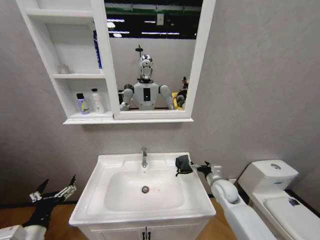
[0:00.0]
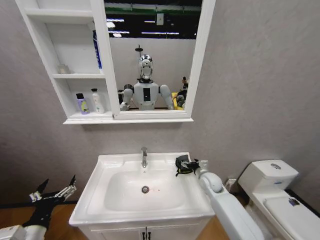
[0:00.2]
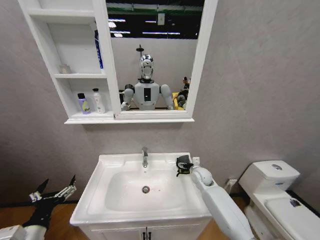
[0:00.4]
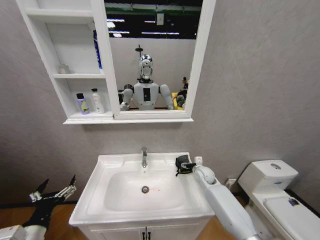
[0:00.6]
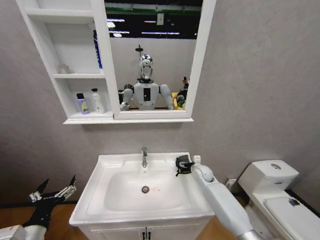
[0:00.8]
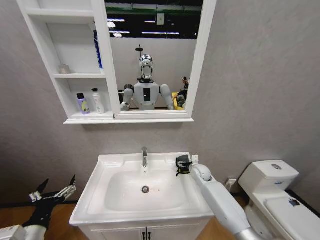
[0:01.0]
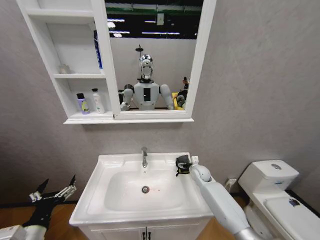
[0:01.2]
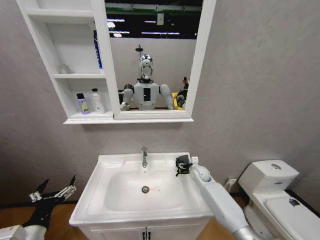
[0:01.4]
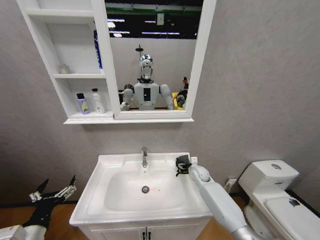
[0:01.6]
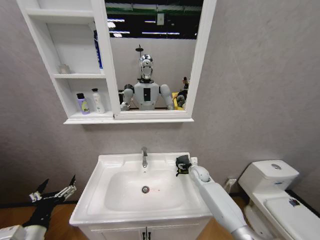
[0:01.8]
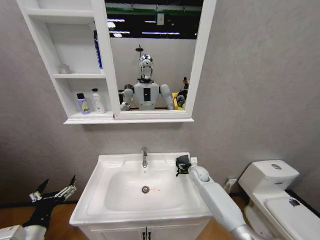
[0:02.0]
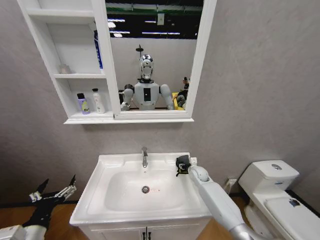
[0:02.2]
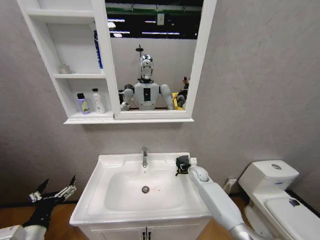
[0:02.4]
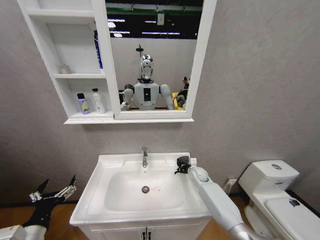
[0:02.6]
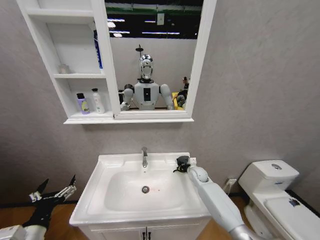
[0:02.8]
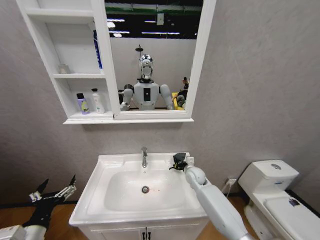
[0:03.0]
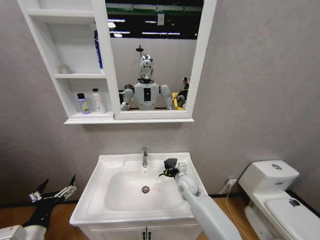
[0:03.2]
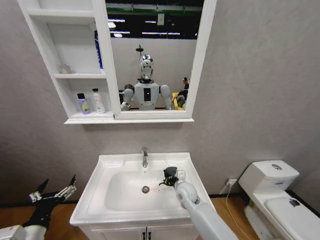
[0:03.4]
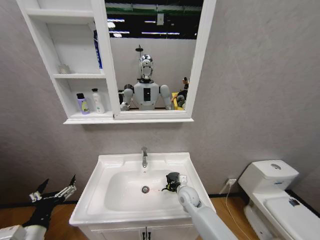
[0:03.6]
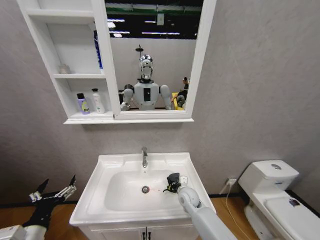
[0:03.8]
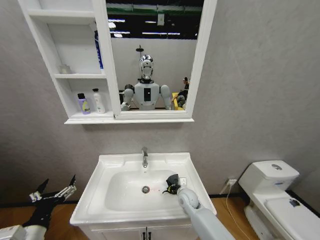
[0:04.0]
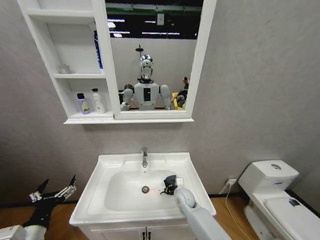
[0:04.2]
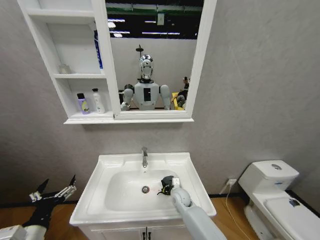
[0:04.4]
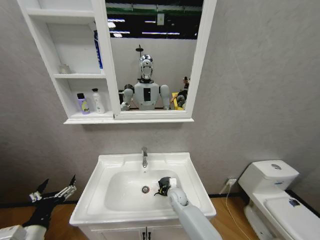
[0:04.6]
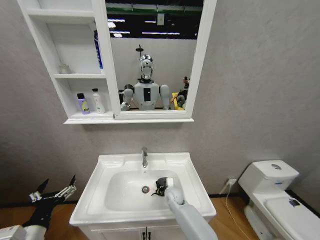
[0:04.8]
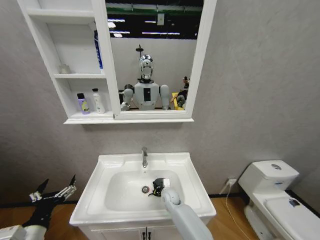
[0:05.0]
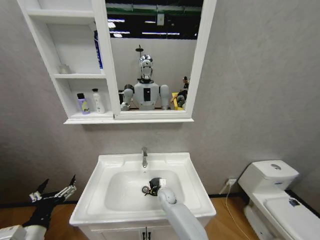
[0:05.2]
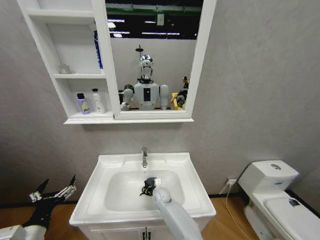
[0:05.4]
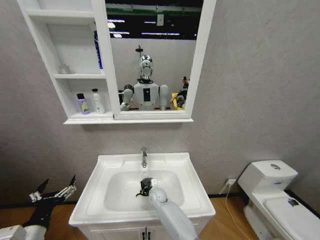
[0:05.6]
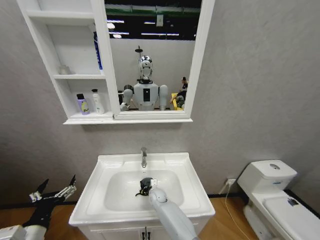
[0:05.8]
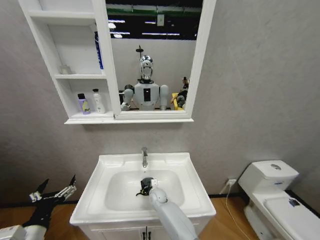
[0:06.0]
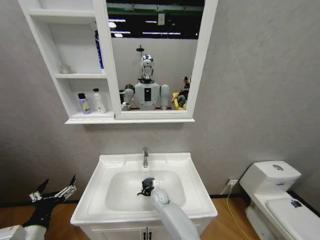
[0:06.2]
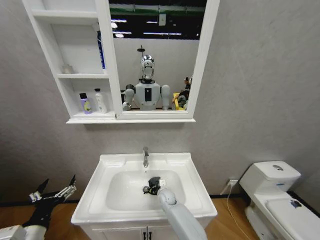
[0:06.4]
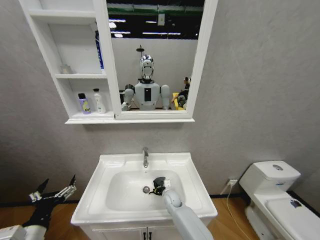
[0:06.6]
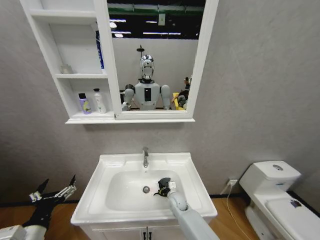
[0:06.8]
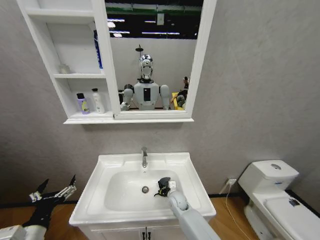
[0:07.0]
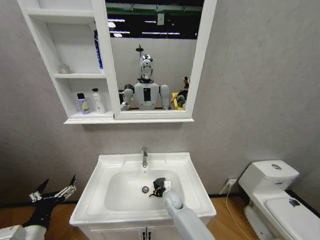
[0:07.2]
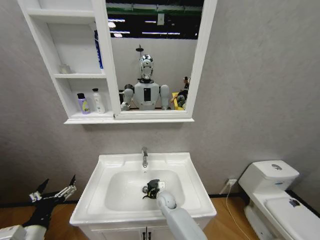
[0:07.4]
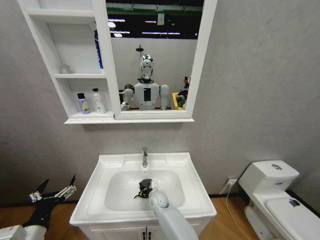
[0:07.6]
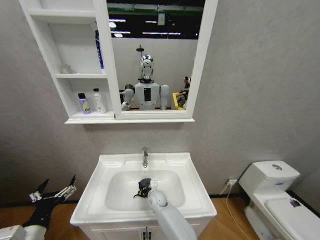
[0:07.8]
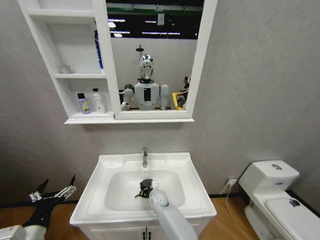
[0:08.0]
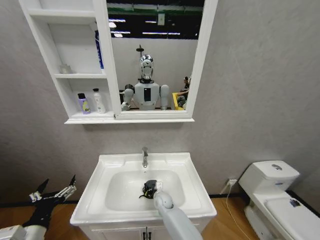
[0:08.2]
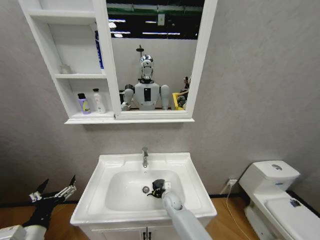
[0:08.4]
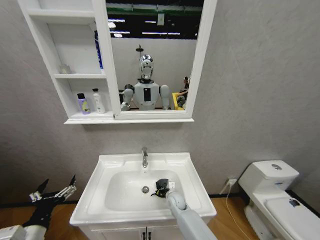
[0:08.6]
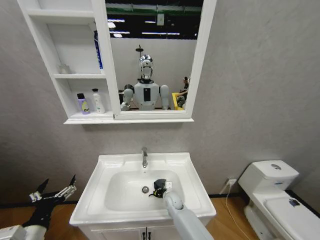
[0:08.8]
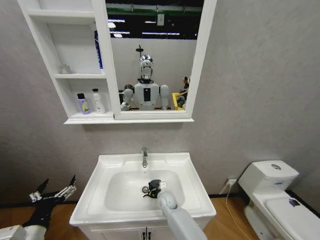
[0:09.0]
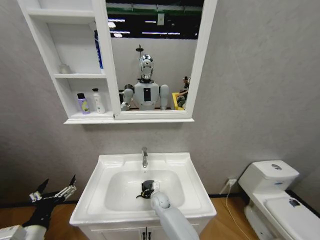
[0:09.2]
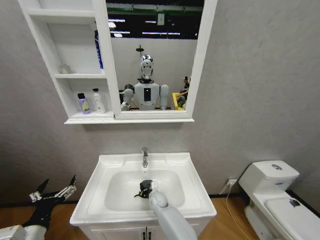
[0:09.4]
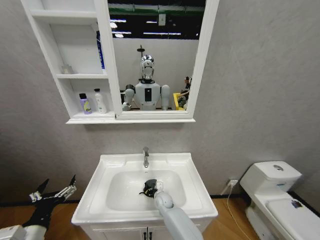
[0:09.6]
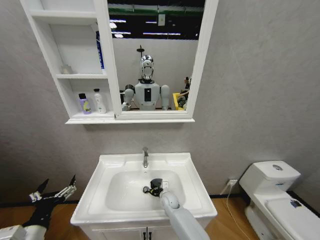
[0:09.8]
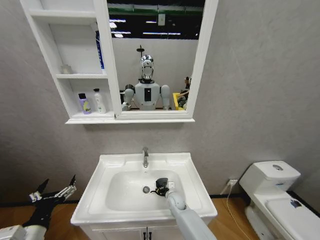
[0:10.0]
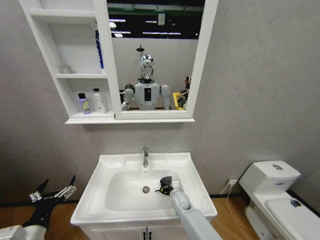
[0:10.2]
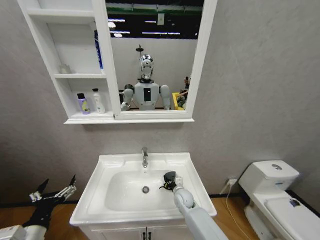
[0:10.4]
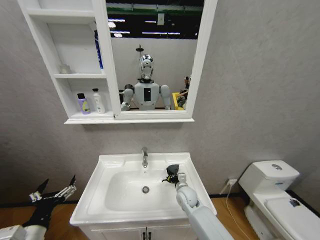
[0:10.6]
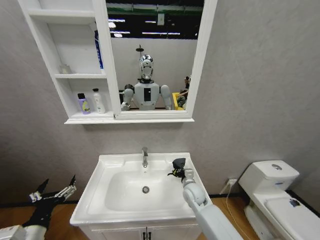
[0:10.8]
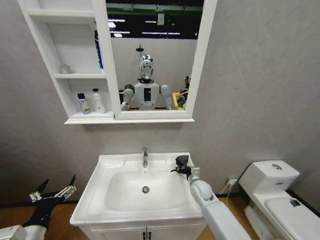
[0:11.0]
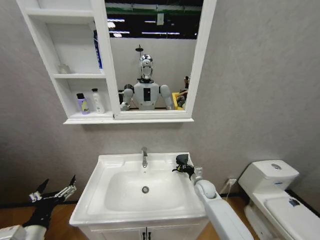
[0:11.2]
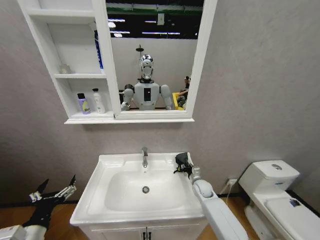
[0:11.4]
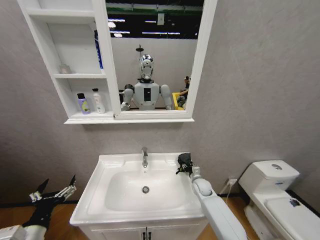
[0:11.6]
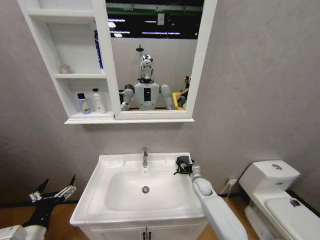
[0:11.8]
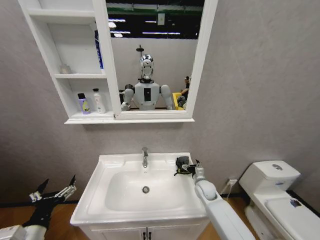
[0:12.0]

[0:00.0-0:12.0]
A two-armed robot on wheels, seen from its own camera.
Task of the whole recording: Move facial cleanser and shampoo from washbasin to cabinet, then wipe washbasin with towel.
0:00.0 to 0:01.6: The right gripper moves forward and to the left, roughly 10 cm.
0:01.6 to 0:03.0: The right gripper moves about 5 cm, and closes.
0:03.0 to 0:04.4: The right gripper goes roughly 15 cm downward, to the left and backward.
0:04.4 to 0:06.0: The right gripper shifts approximately 10 cm to the left and downward.
0:06.0 to 0:07.6: The right gripper goes to the right and returns, some 10 cm each way.
0:09.0 to 0:10.4: The right gripper travels to the right by about 5 cm.
0:10.4 to 0:12.0: The right gripper goes about 10 cm to the right, and opens.

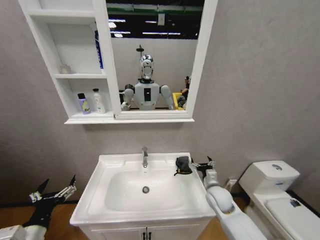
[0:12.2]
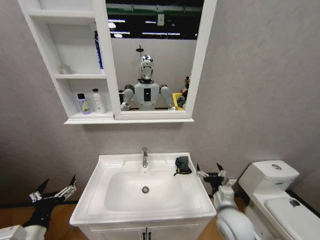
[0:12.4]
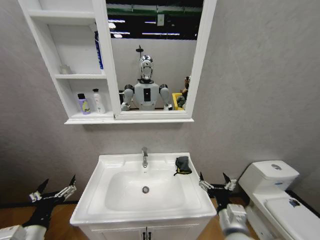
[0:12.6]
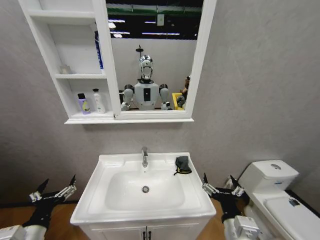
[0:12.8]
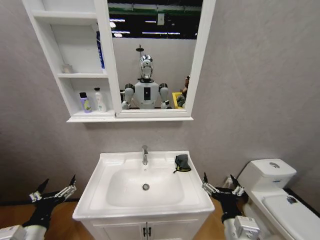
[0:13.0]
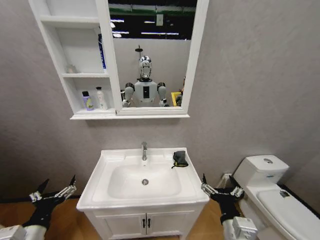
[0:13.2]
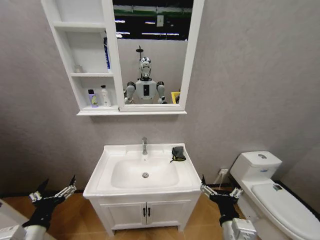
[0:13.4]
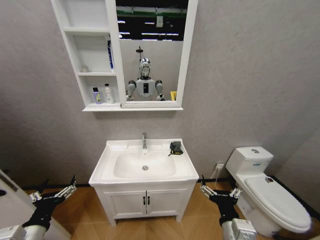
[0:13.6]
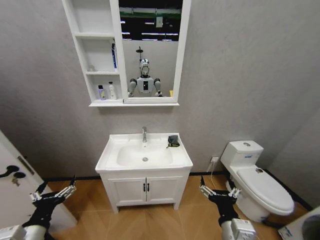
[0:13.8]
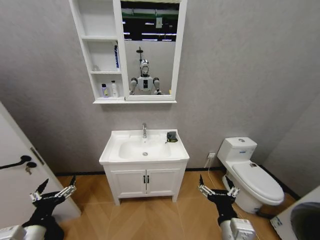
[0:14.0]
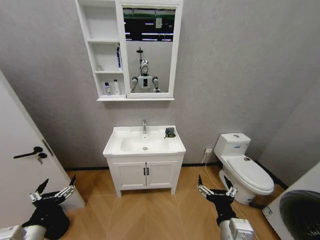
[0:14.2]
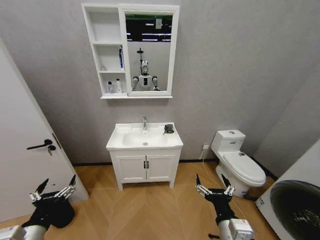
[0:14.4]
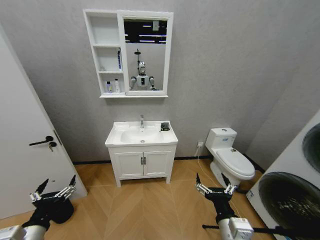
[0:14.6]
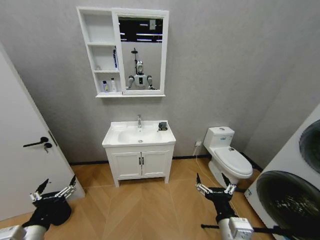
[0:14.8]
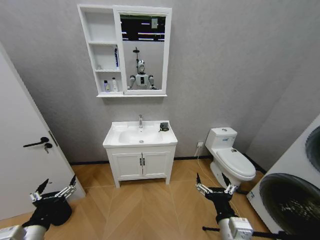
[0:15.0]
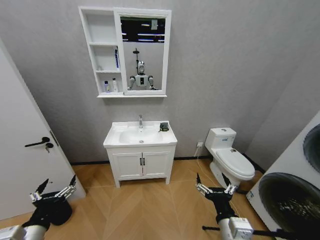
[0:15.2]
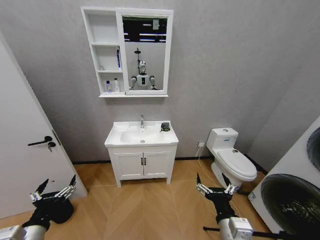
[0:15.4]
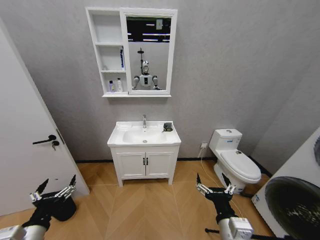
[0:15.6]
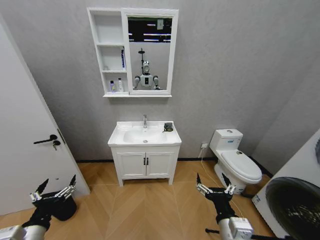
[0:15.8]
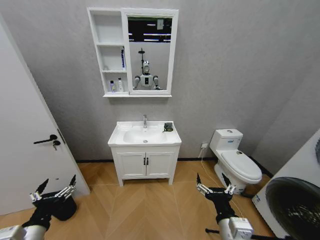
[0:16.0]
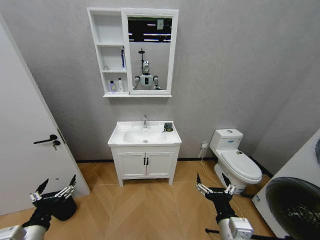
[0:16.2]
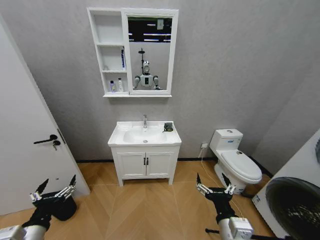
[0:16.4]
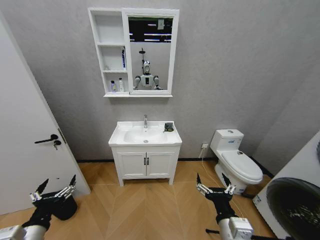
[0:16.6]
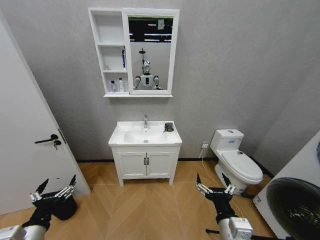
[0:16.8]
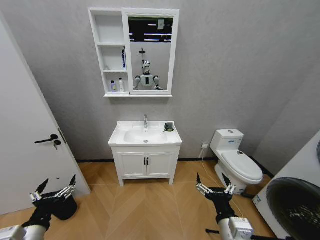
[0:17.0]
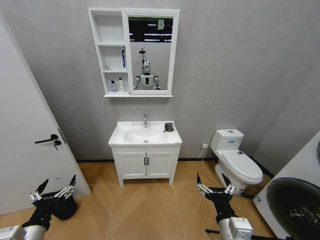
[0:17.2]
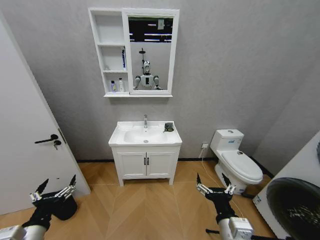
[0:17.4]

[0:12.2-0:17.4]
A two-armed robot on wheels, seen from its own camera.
Task of the whole recording: Move facial cleanser and shampoo from washbasin to cabinet, then wipe washbasin with towel.
0:12.2 to 0:14.0: The right gripper heads backward, covering approximately 25 cm.
0:15.6 to 0:17.4: Both grippers stay about where they are.

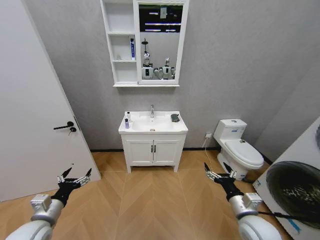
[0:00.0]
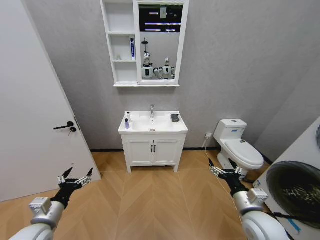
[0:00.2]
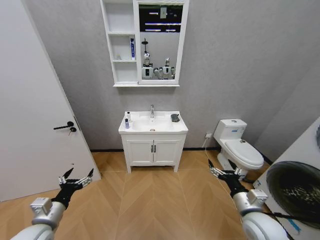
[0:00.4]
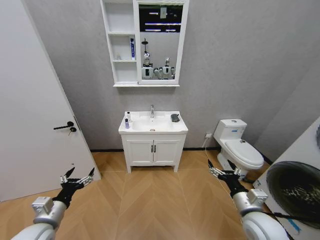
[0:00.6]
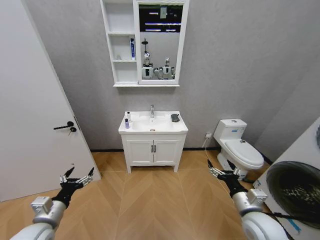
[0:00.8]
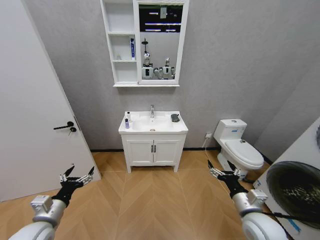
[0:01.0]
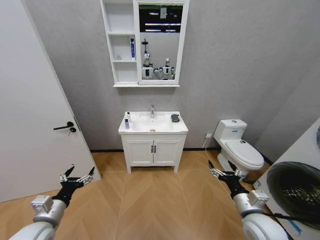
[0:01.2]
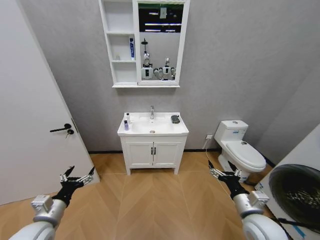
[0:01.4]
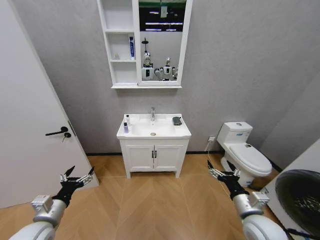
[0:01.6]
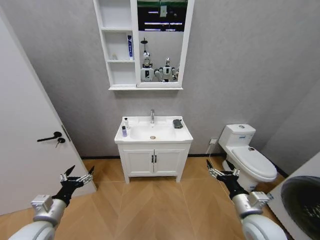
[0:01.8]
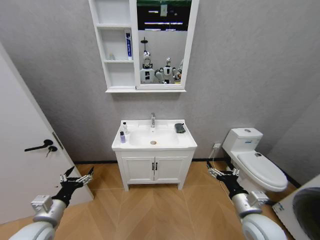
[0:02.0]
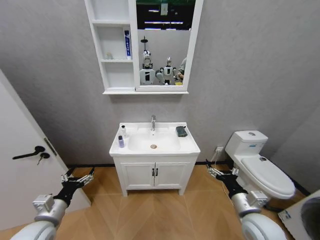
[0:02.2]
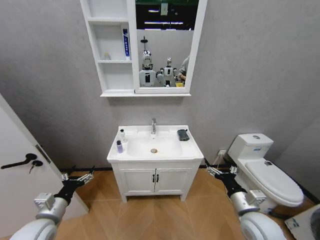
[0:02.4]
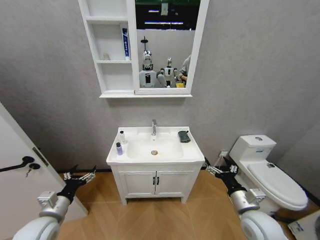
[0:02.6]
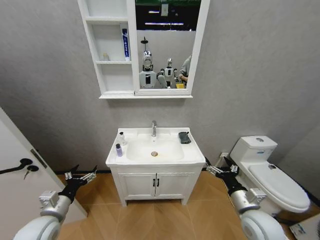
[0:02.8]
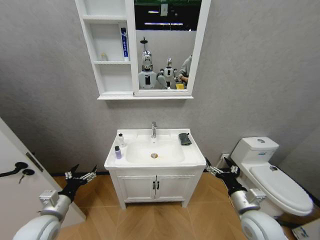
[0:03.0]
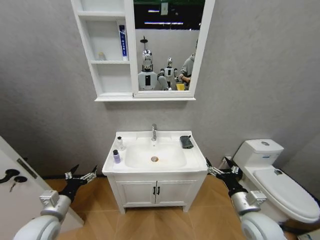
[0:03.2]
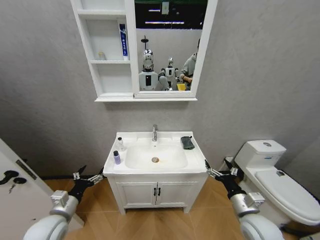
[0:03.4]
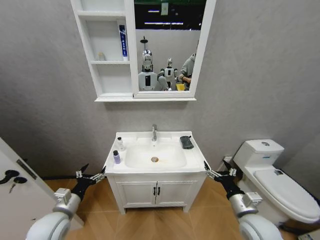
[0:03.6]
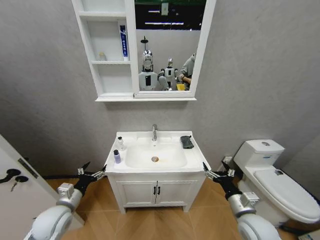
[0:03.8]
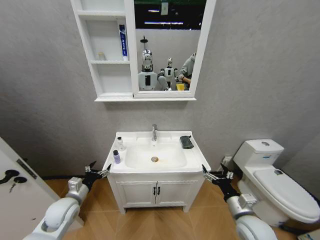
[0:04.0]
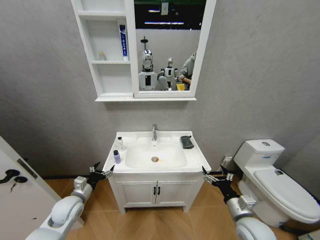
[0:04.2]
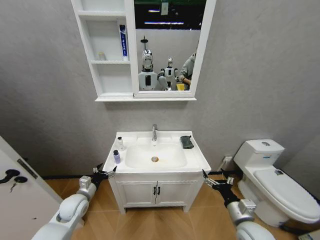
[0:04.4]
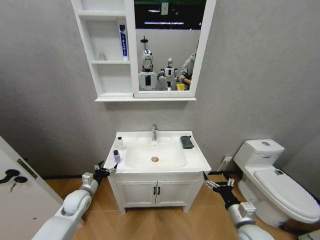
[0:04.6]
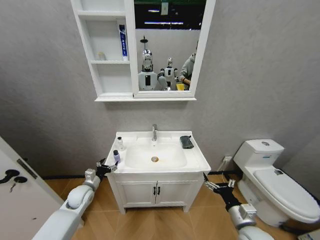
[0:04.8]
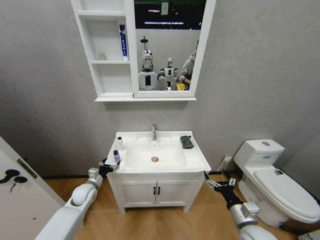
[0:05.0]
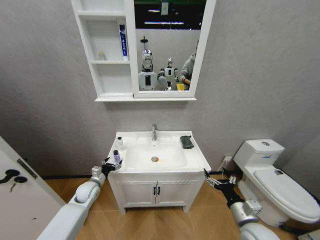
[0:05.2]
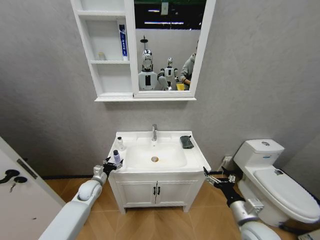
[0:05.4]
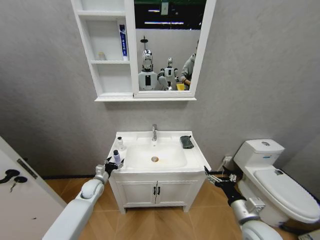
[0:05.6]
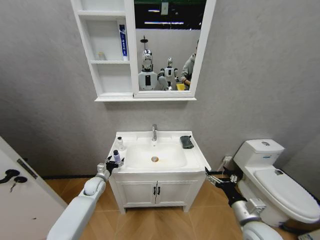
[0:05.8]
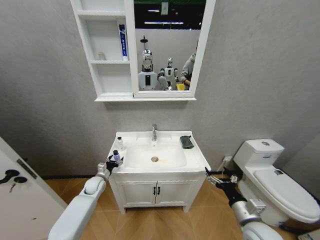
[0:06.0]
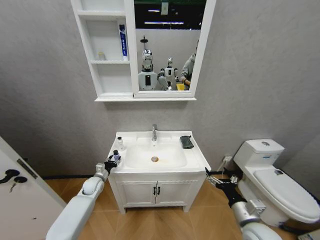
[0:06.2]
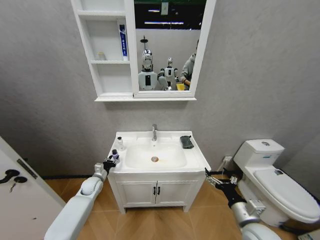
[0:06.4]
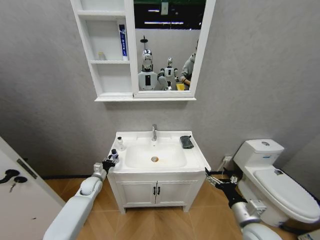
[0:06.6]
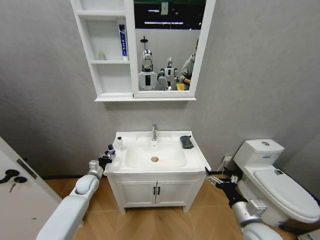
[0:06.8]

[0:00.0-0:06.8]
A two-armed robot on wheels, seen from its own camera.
Task of the whole recording: Move facial cleanser and shampoo from washbasin to cabinet, then wipe washbasin with towel.
0:02.8 to 0:04.0: The left gripper shifts roughly 5 cm forward.
0:04.0 to 0:05.4: The left gripper moves forward and downward, approximately 15 cm.
0:05.4 to 0:06.8: The left gripper closes its fingers.
